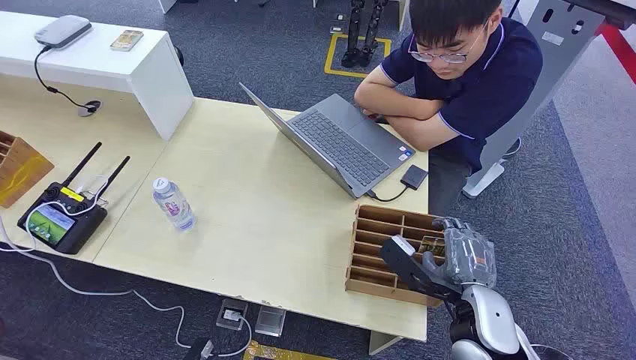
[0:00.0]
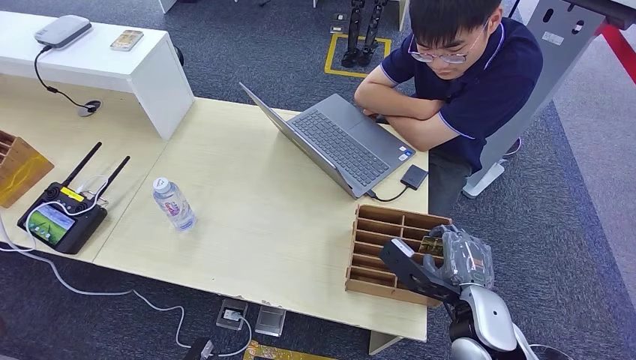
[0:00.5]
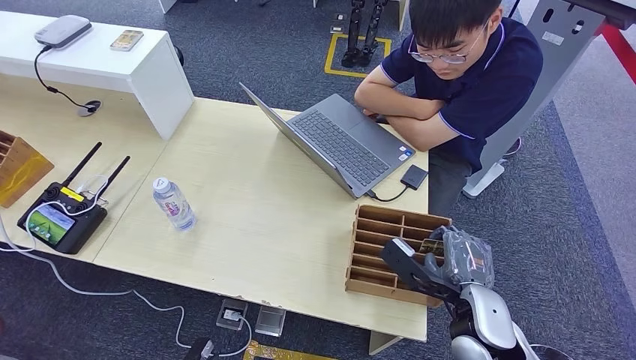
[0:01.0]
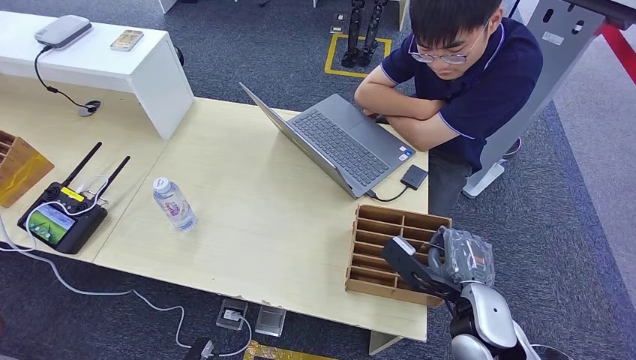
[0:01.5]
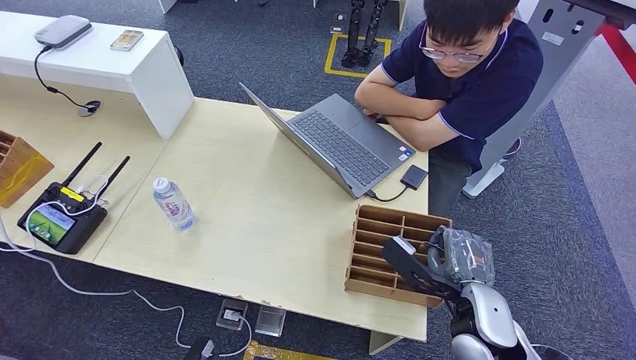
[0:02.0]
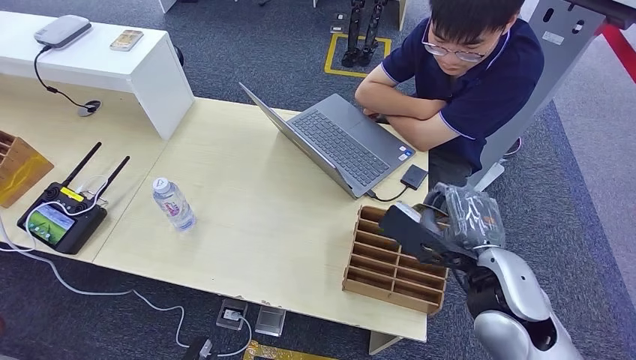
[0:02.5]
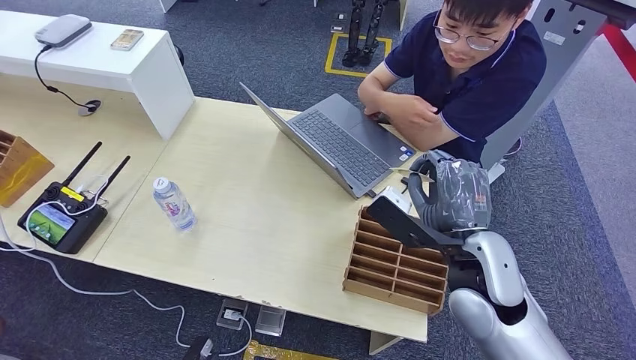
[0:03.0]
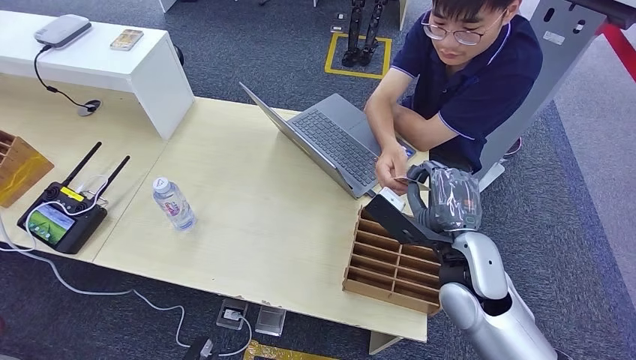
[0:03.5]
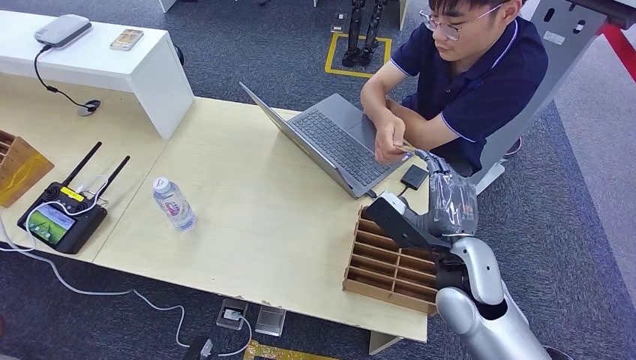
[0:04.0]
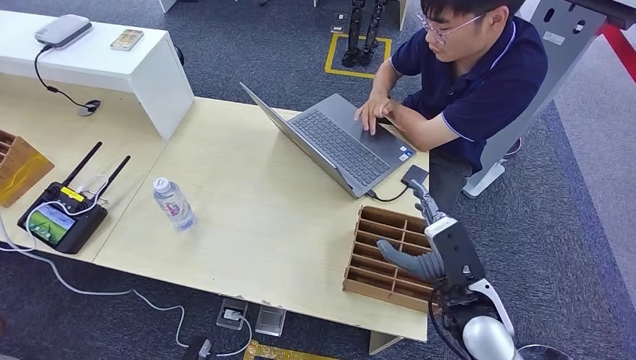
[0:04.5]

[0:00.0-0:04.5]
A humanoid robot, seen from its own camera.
Step, 0:00.0 to 0:02.5: Pick up the room card from the card holder.
Step, 0:03.0 to 0:04.5: Hand the room card to the target.
0:02.0 to 0:04.5: The right hand goes upward and returns, approximately 10 cm each way.

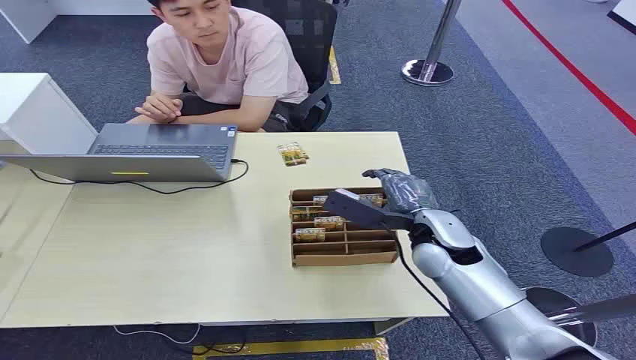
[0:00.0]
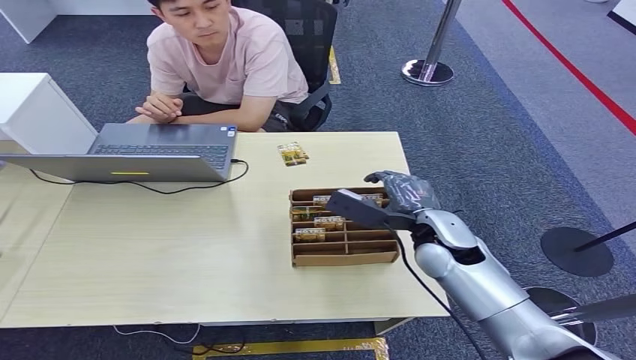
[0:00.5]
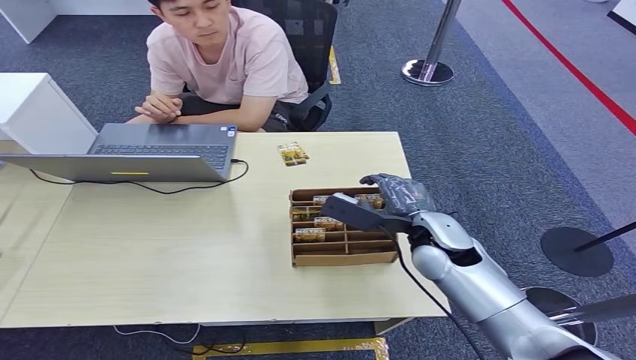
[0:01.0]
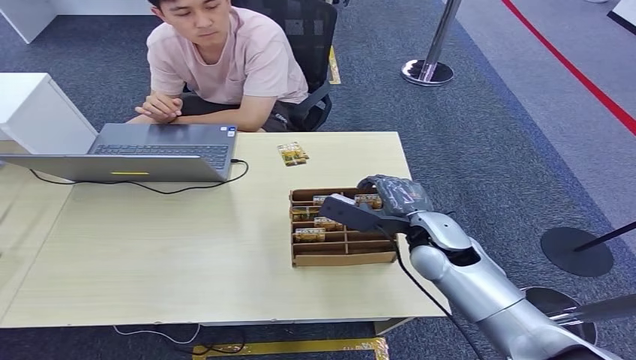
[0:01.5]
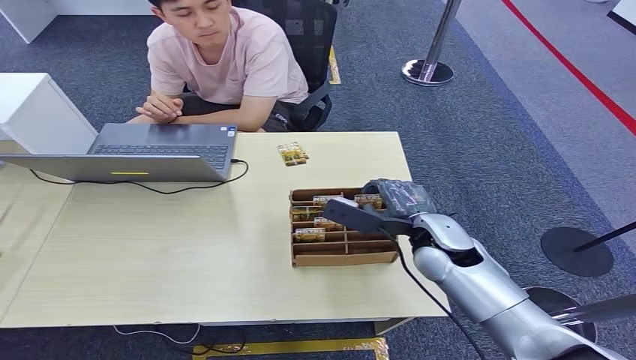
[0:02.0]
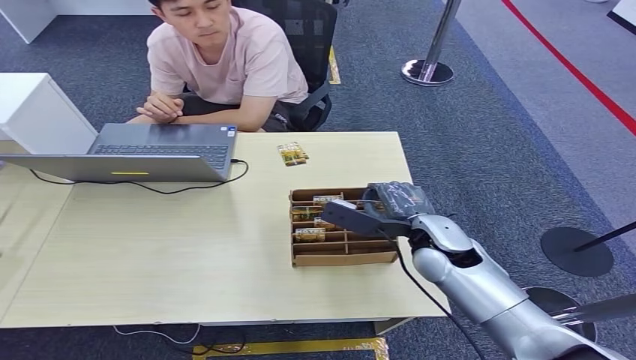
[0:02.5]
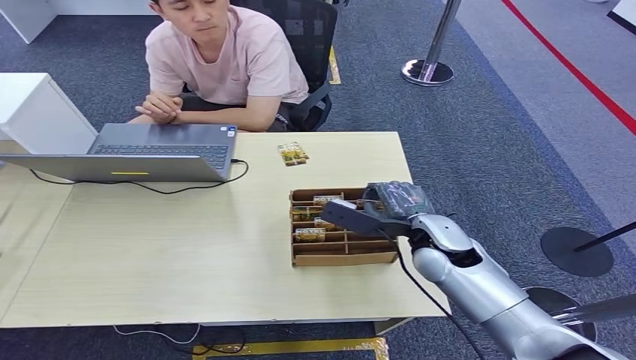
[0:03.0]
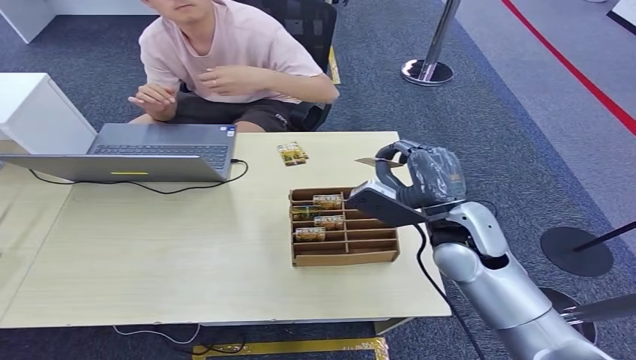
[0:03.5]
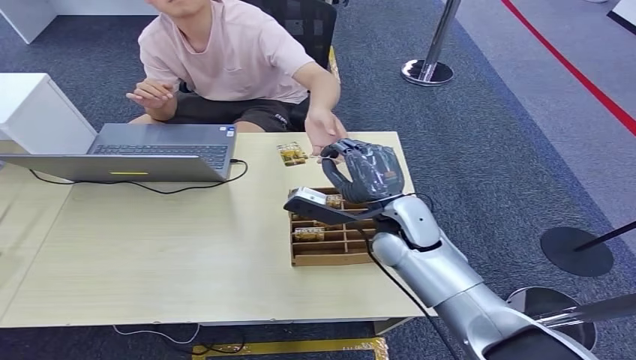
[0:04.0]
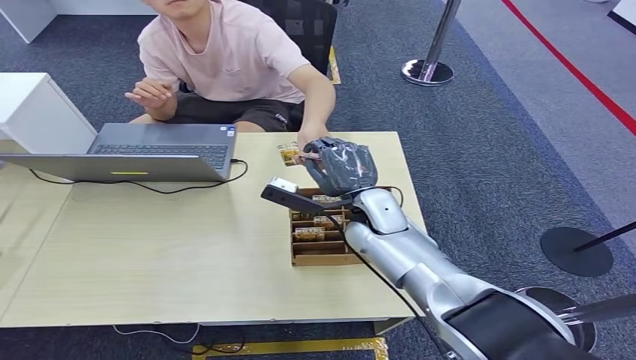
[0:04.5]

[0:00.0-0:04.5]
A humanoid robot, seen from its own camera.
Step, 0:00.0 to 0:03.0: Pick up the room card from the card holder.
Step, 0:03.5 to 0:04.5: Hand the room card to the target.
0:02.0 to 0:04.5: The right hand moves to the left and forward, about 10 cm.

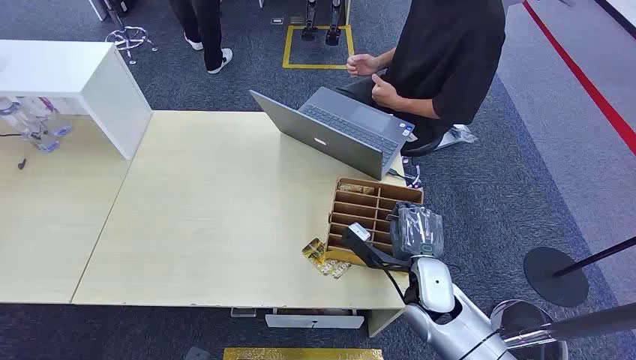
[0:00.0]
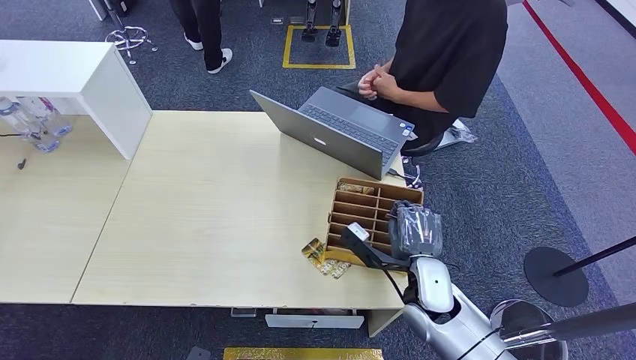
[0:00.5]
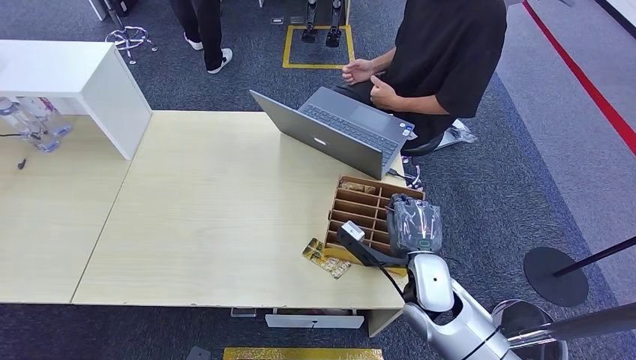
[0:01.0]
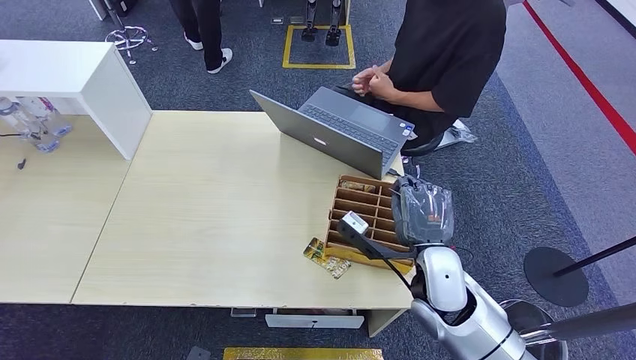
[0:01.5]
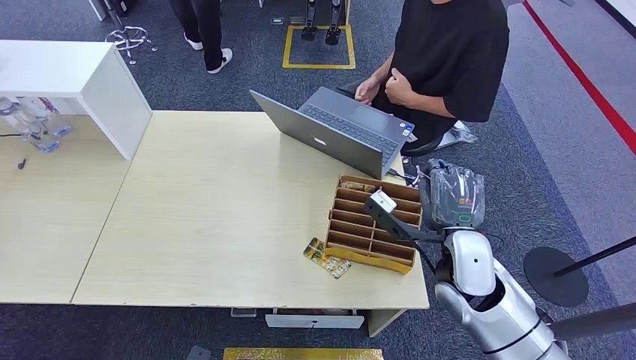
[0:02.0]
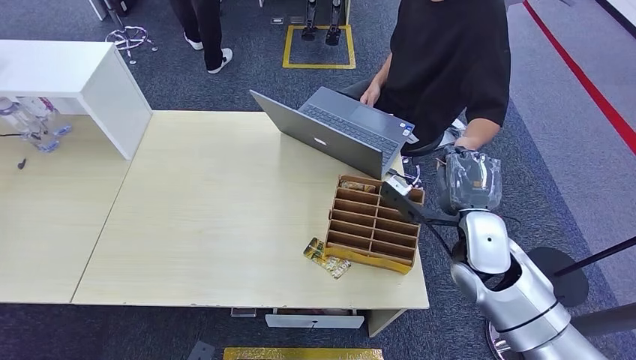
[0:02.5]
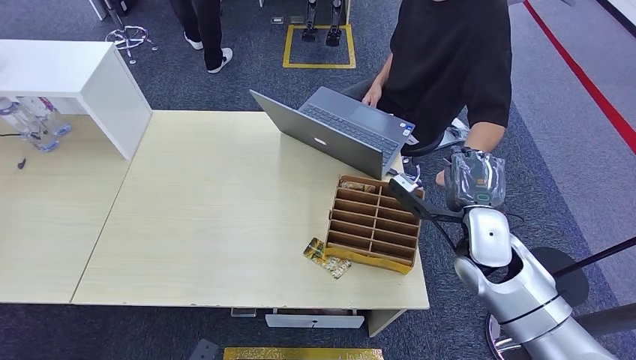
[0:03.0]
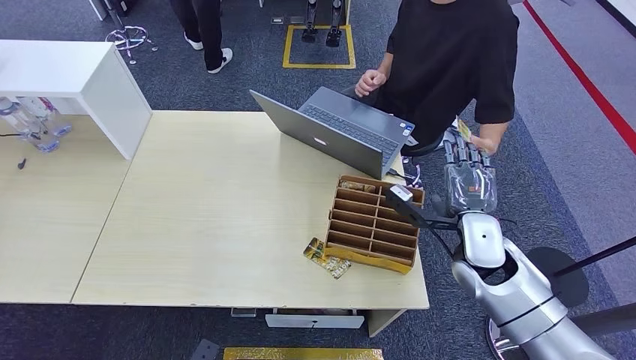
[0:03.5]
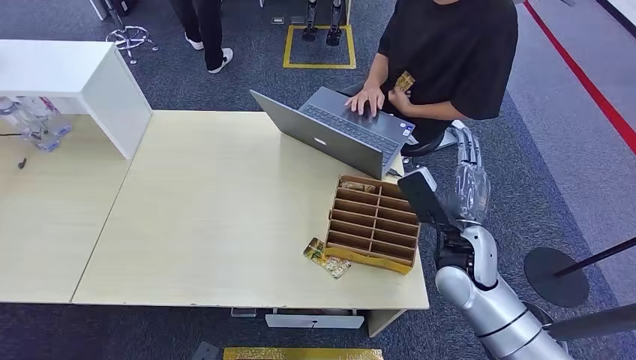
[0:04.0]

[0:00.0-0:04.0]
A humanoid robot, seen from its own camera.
Step, 0:00.0 to 0:02.0: Pick up the room card from the card holder.
Step, 0:02.5 to 0:03.5: Hand the room card to the target.
